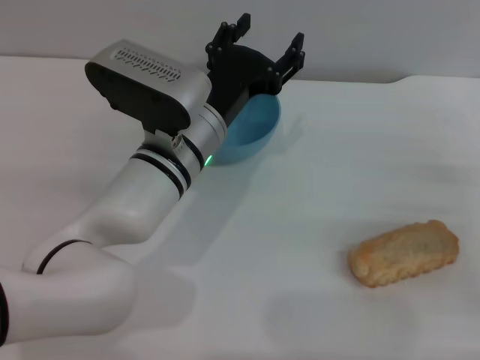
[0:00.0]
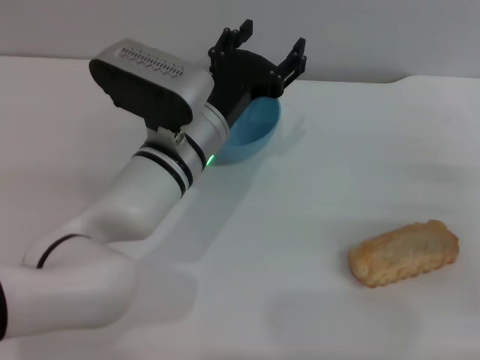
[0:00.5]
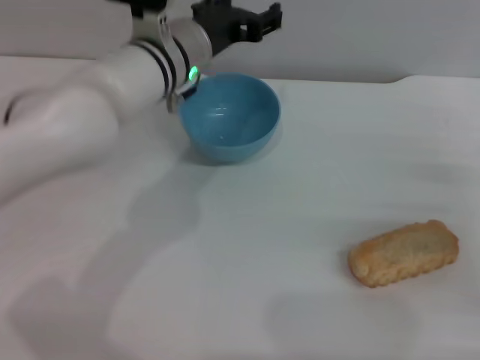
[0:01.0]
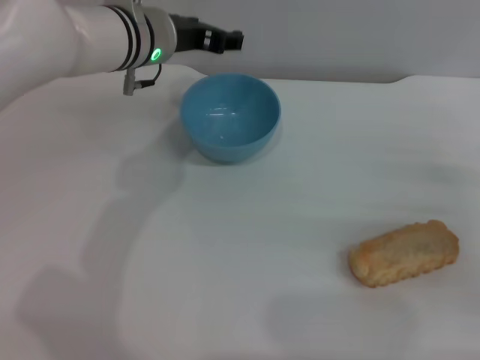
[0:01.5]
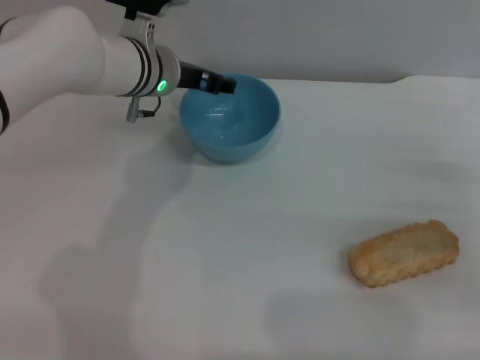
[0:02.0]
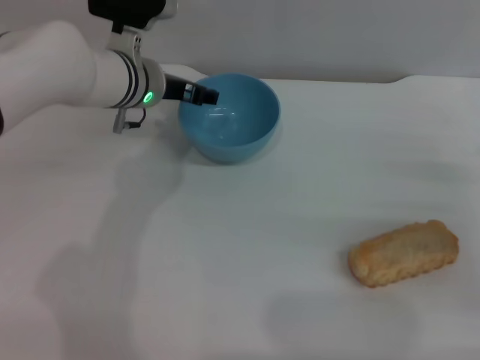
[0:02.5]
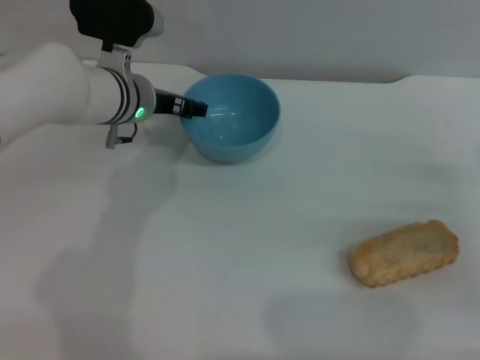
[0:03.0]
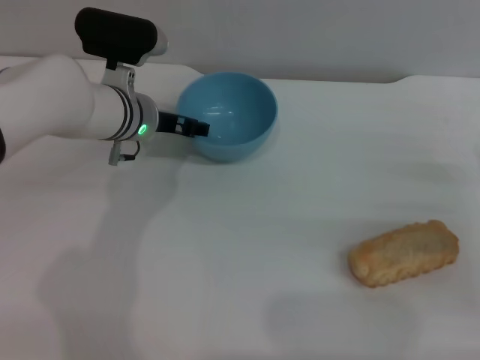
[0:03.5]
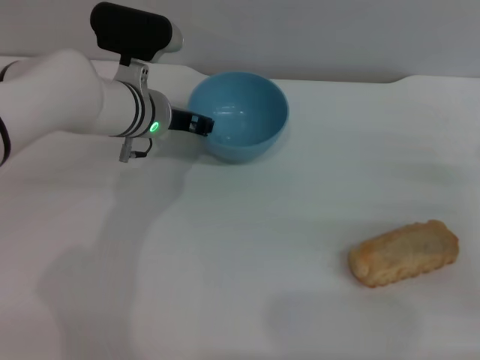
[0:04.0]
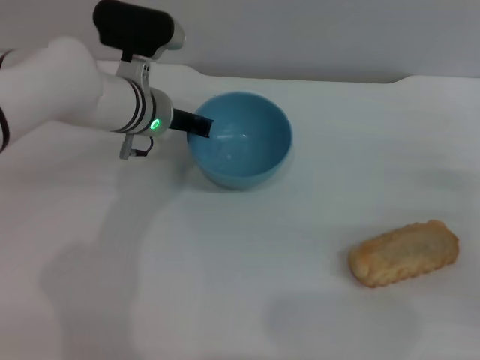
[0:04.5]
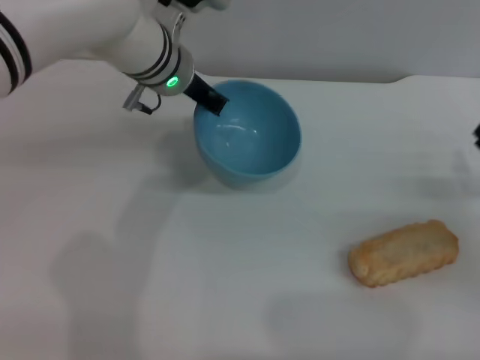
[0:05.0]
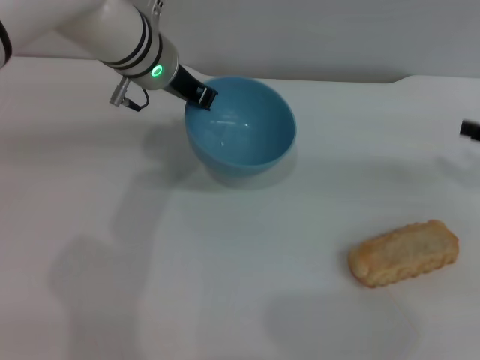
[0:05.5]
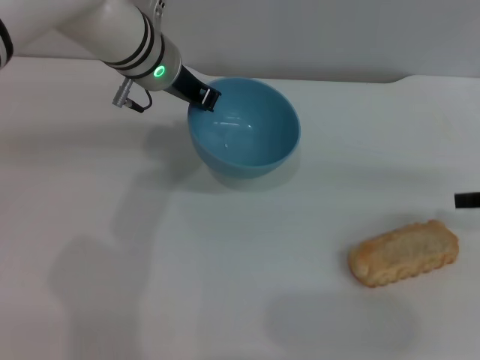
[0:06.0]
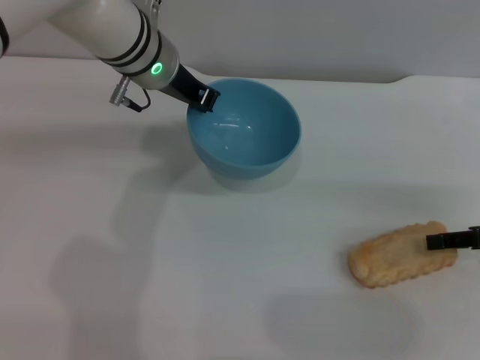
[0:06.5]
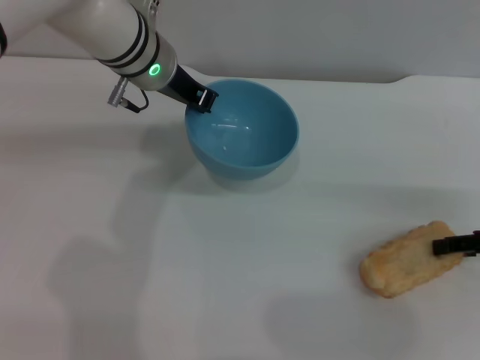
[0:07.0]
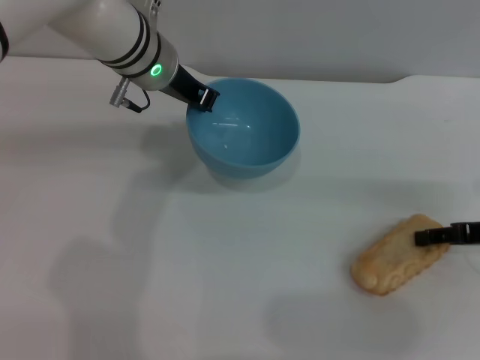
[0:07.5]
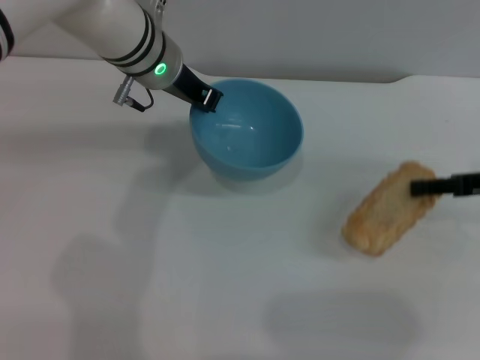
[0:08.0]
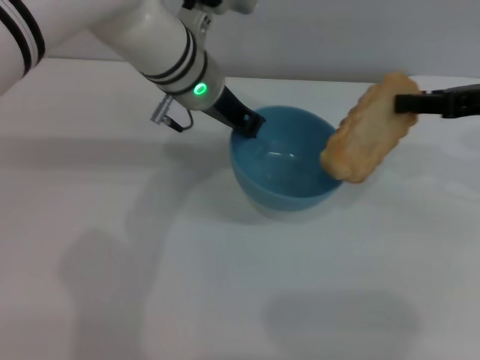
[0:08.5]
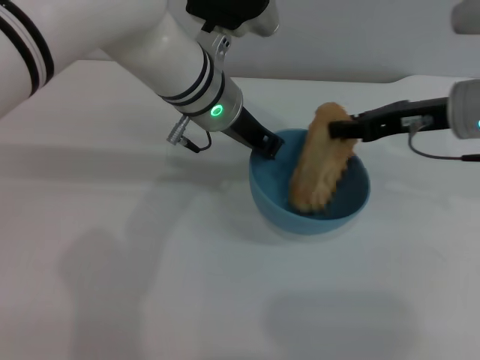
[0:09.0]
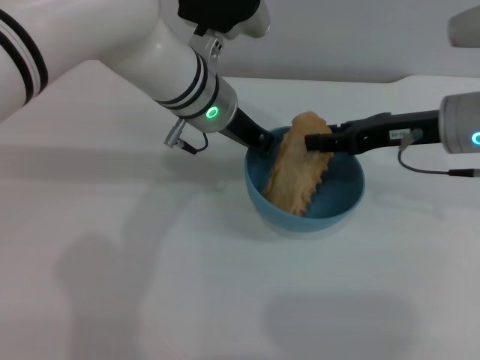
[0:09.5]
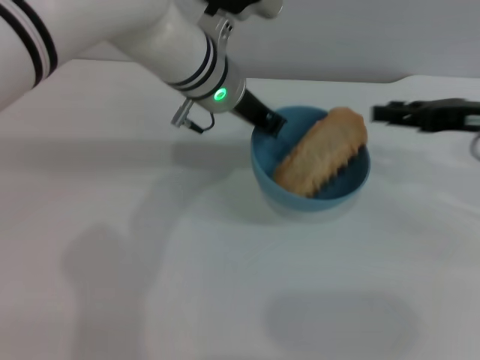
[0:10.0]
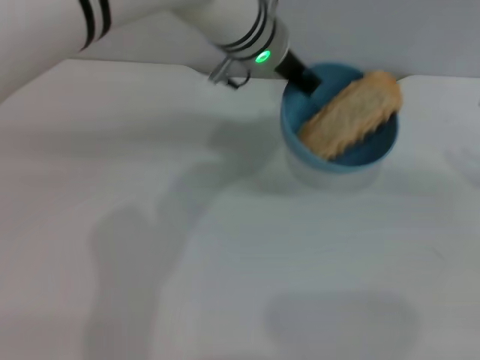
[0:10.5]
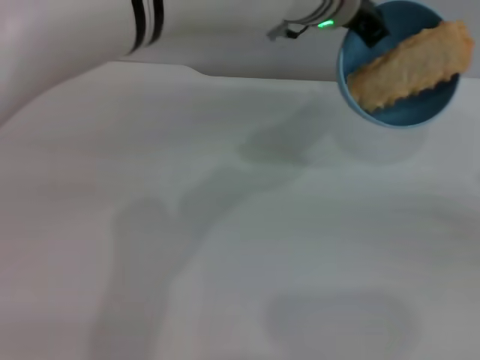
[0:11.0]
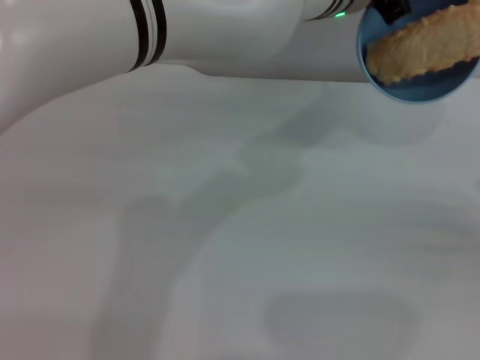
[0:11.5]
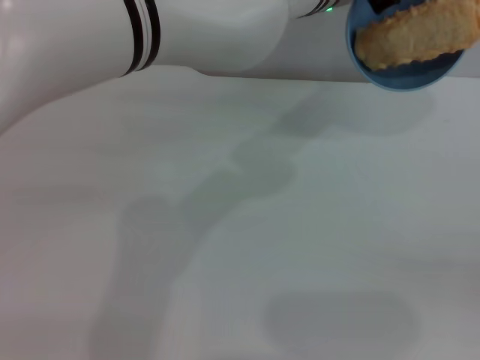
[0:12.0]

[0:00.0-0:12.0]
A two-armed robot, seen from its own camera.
Task of the whole recording: put the bread into the blue bowl and pour it out repeatedly.
Step, 0:00.0 to 0:05.0: Pick up the bowl with the left gripper.
Step, 0:05.5 to 0:08.0: Pick up the bread with the right gripper.
Step, 0:08.5 to 0:10.0: Place the bread into the bowl.
0:00.0 to 0:02.0: The left gripper heads forward and to the left, covering approximately 10 cm.
0:02.0 to 0:04.0: The left gripper closes up.
0:04.0 to 0:06.0: Both grippers move upward, some 10 cm. The left gripper closes.
0:08.0 to 0:10.0: The left gripper travels to the right by about 5 cm.
0:10.0 to 0:12.0: The left gripper travels to the right and upward by approximately 10 cm. Meanwhile the right gripper shifts approximately 25 cm to the right, backward and downward.

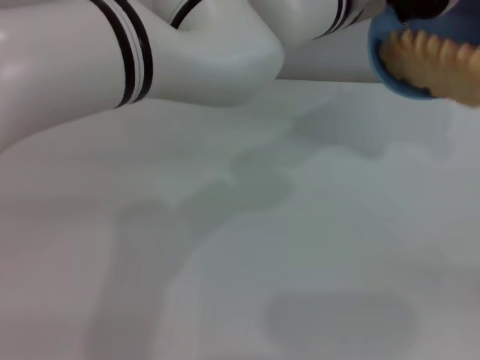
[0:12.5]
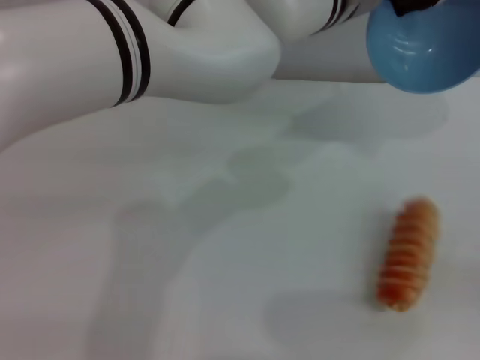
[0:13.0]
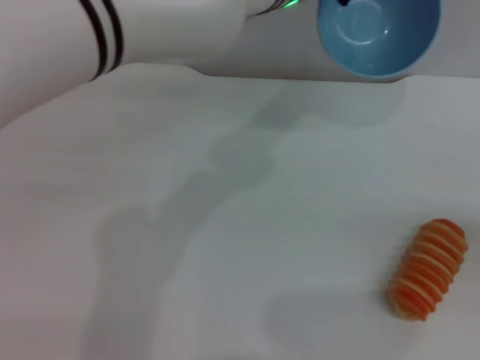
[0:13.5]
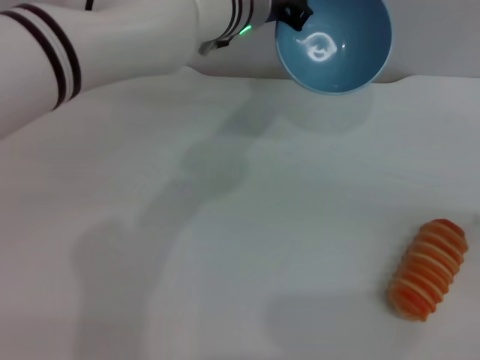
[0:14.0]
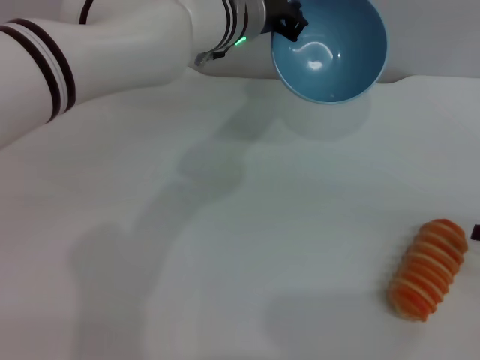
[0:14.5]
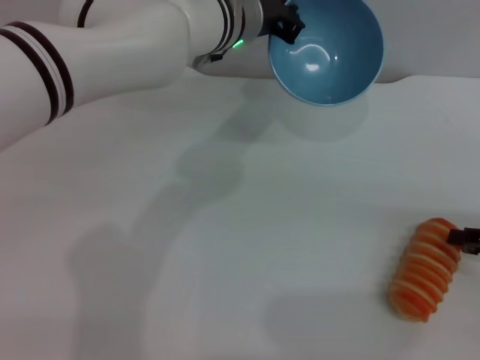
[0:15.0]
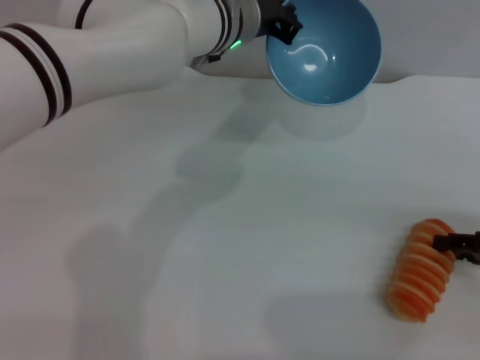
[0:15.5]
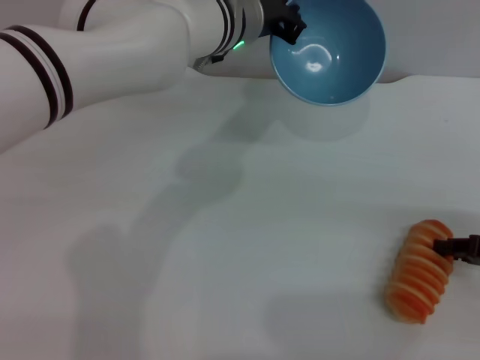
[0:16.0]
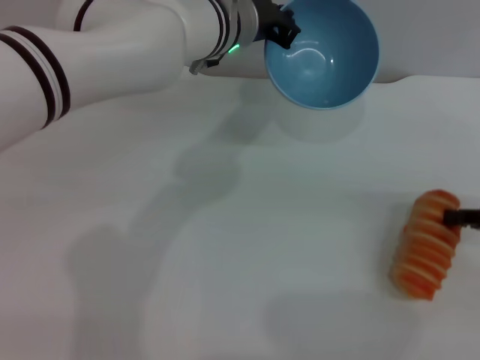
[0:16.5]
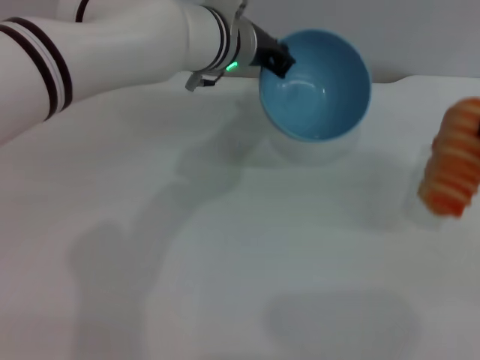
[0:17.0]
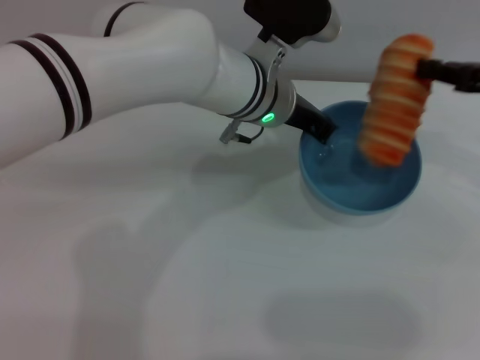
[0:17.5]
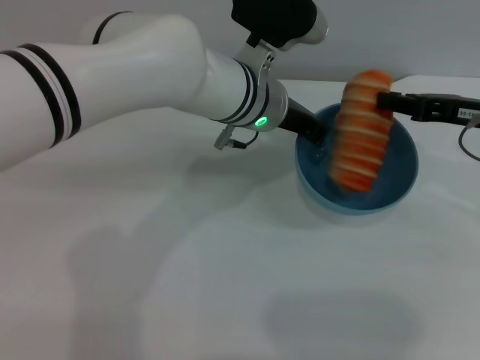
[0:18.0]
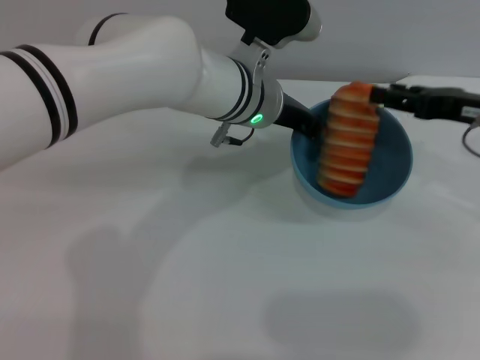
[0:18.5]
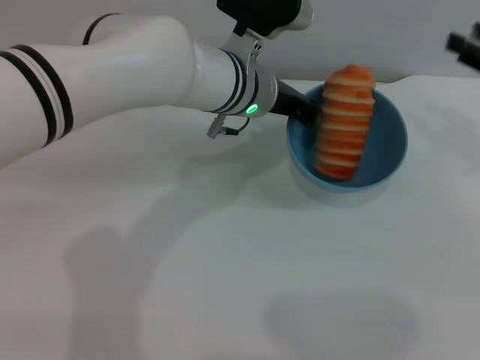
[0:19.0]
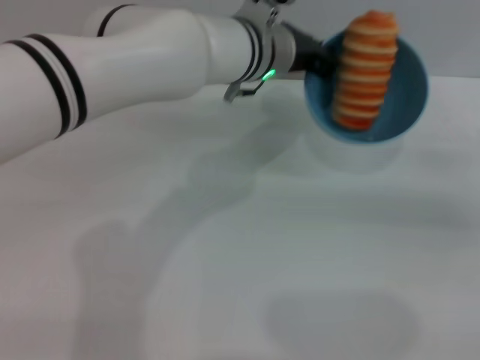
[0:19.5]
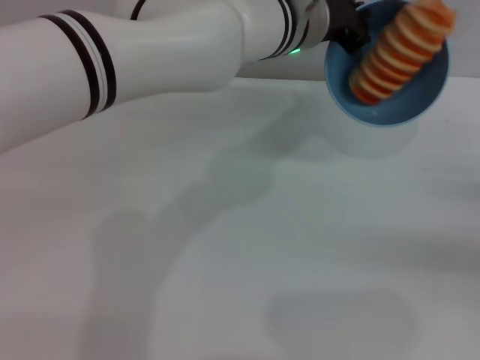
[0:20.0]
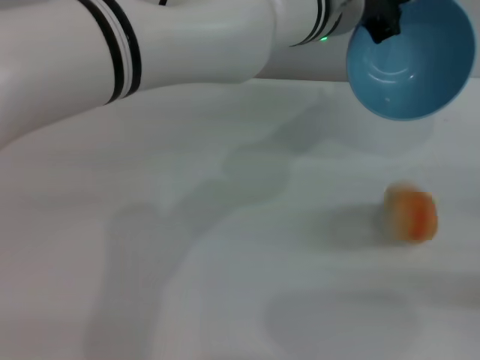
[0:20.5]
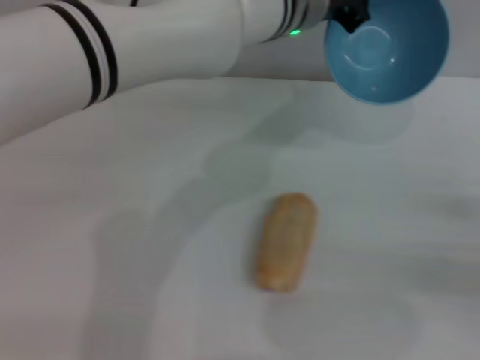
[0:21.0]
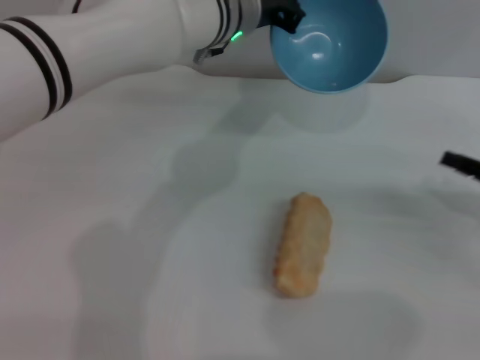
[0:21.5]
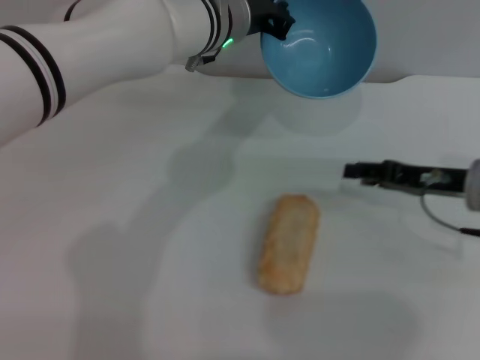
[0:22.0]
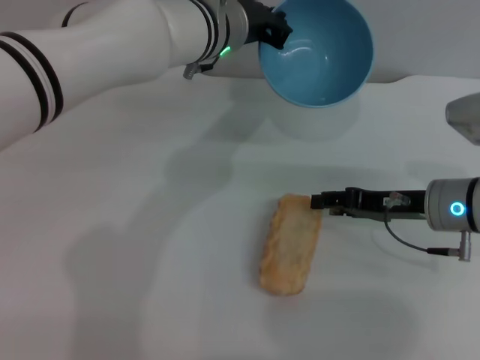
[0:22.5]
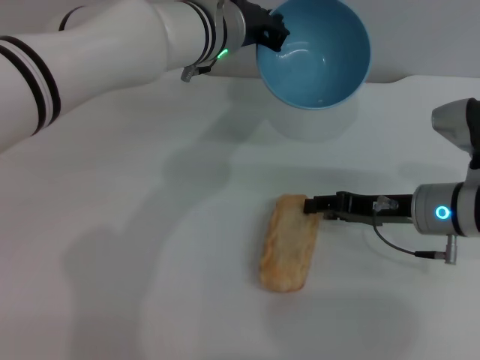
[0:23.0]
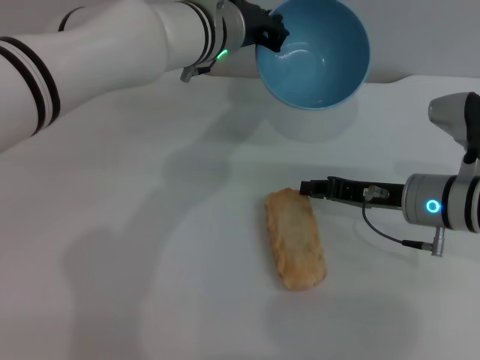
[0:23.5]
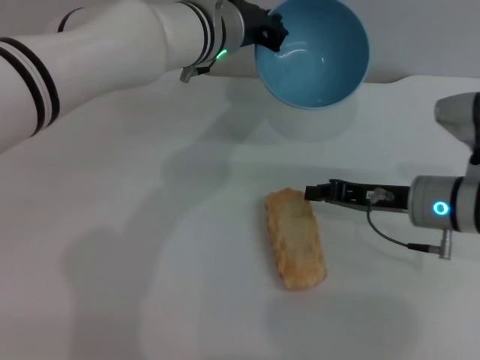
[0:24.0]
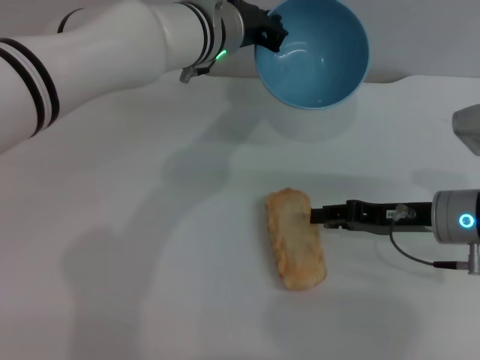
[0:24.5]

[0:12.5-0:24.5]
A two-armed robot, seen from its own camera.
Task of the whole recording: put the bread into the blue bowl and pour it out repeatedly.
Step, 0:13.5 to 0:16.5: Pick up the bread with the right gripper.
Step, 0:17.0 to 0:18.5: Place the bread into the bowl.
Step, 0:19.0 to 0:21.5: Pour the bread out of the bowl.
0:12.5 to 0:14.5: The right gripper heads to the left and forward, covering approximately 10 cm, while the left gripper heads to the left, covering approximately 10 cm.
0:14.5 to 0:16.5: The right gripper closes up.
0:16.5 to 0:18.5: The right gripper moves to the left, forward and upward, about 10 cm, and opens. The left gripper changes place by roughly 5 cm.
0:18.5 to 0:20.5: The left gripper moves upward and to the right, roughly 10 cm. The right gripper travels backward, to the right and downward by approximately 20 cm.
0:20.5 to 0:22.5: The right gripper travels to the left and forward by about 20 cm. The left gripper is displaced to the left by roughly 10 cm.
0:22.5 to 0:24.5: The right gripper closes.

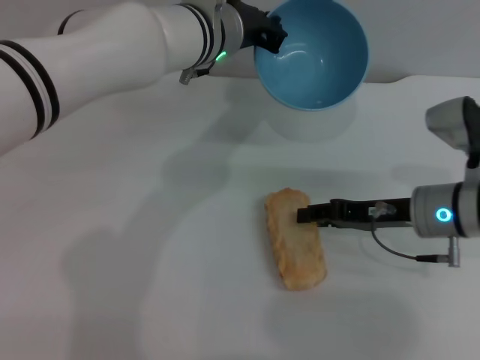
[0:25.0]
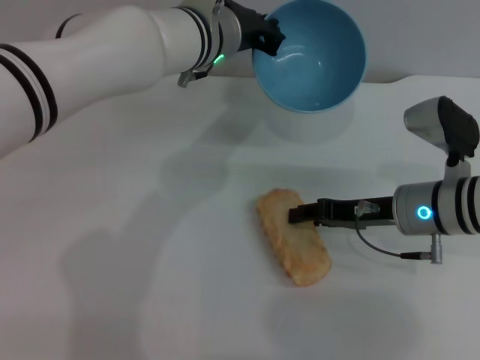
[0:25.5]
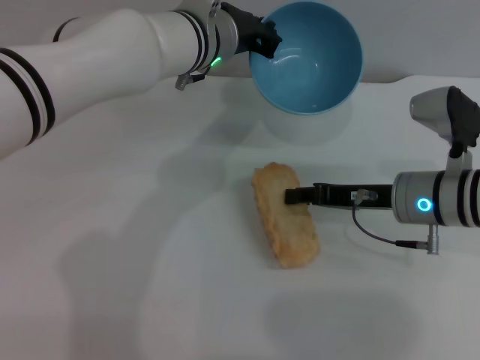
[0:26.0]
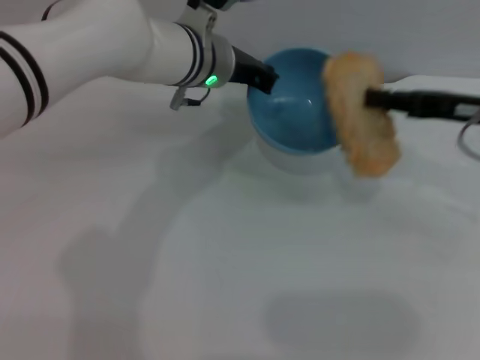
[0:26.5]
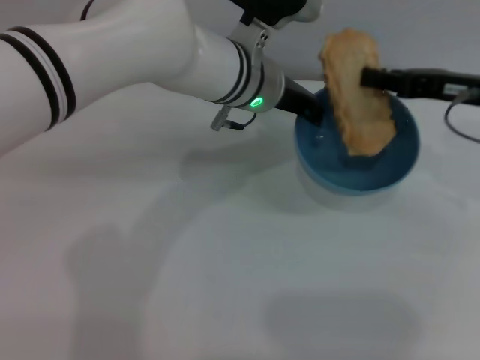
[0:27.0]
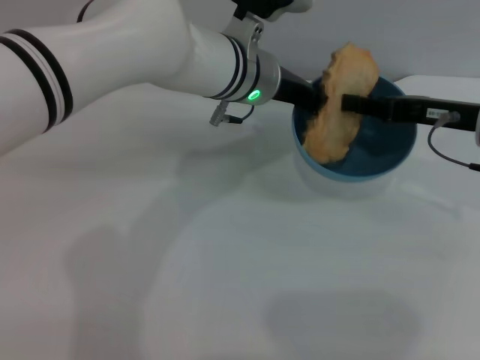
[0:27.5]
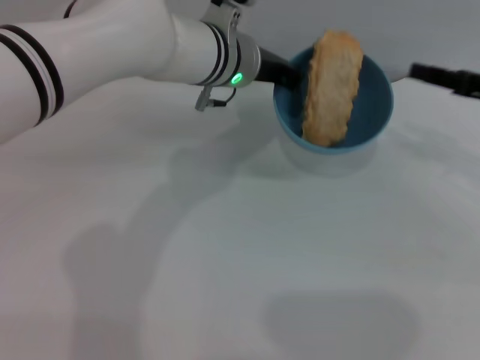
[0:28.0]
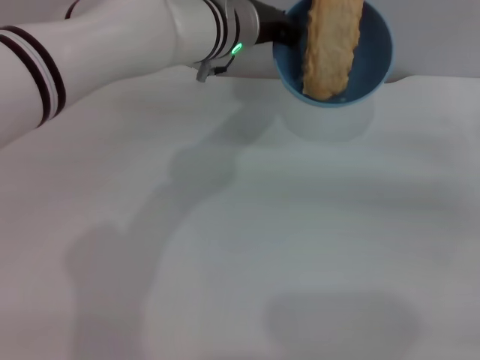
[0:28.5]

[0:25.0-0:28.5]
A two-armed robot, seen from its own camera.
Task of the whole recording: put the bread into the blue bowl and pour it out repeatedly.
Step, 0:26.5 to 0:27.5: Place the bread into the bowl.
0:25.0 to 0:27.0: The right gripper goes roughly 10 cm upward and to the right, and closes its fingers; the left gripper moves roughly 5 cm.
0:27.0 to 0:28.5: The right gripper is displaced to the right and downward by some 10 cm, and opens its fingers.
